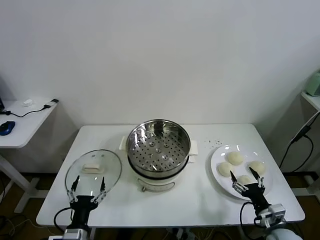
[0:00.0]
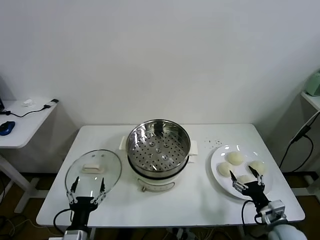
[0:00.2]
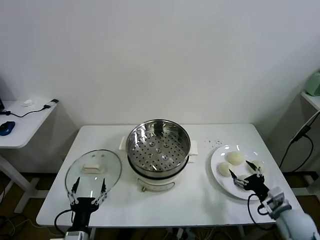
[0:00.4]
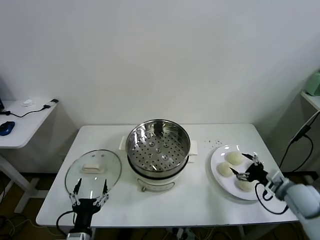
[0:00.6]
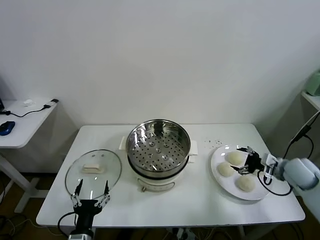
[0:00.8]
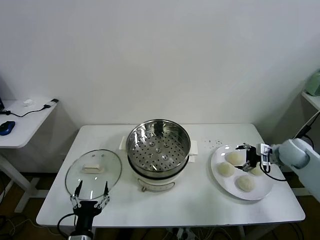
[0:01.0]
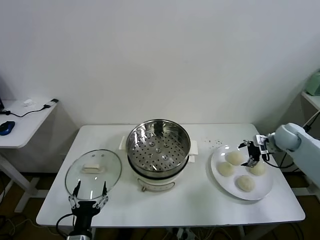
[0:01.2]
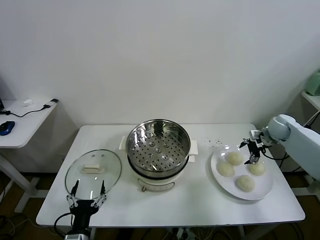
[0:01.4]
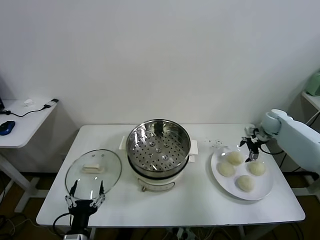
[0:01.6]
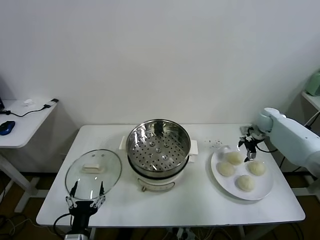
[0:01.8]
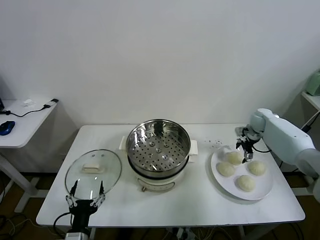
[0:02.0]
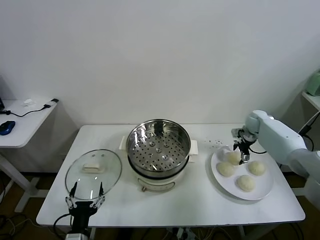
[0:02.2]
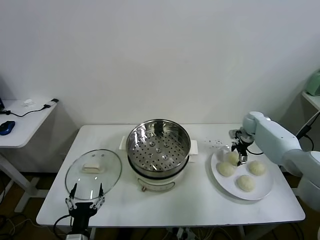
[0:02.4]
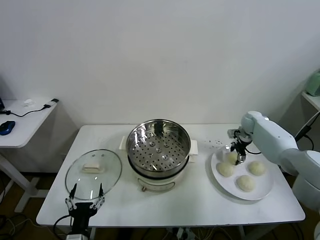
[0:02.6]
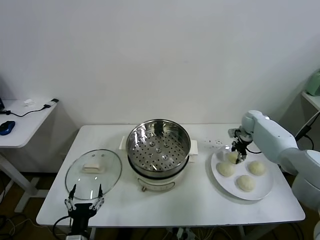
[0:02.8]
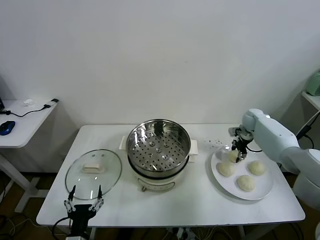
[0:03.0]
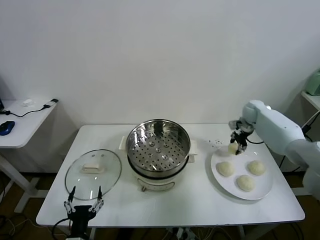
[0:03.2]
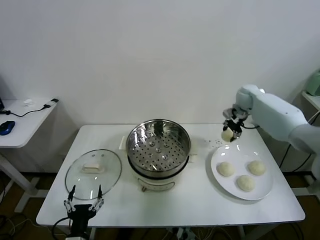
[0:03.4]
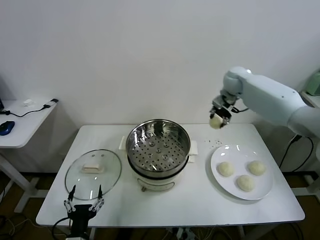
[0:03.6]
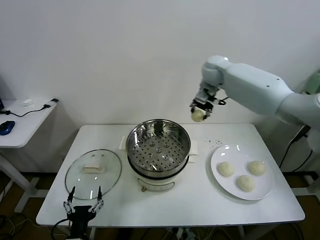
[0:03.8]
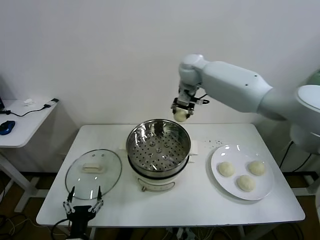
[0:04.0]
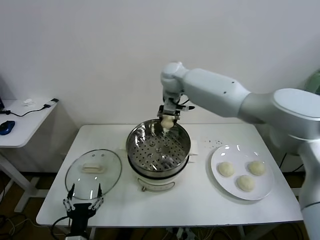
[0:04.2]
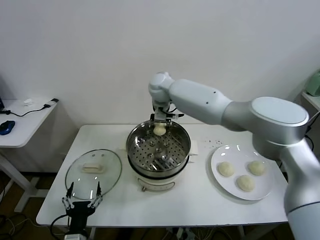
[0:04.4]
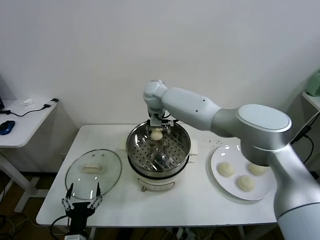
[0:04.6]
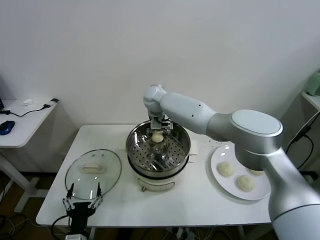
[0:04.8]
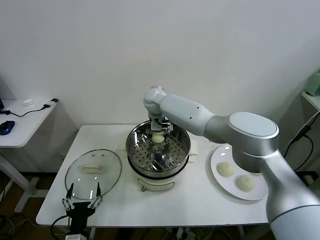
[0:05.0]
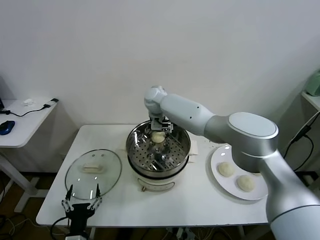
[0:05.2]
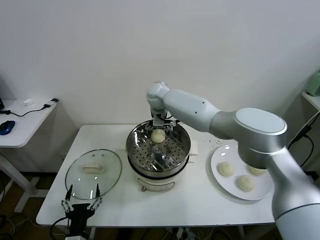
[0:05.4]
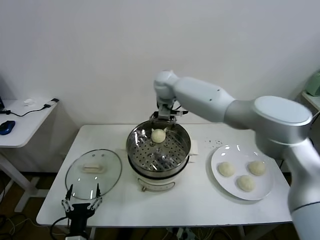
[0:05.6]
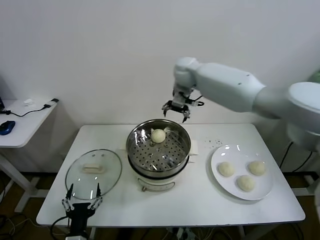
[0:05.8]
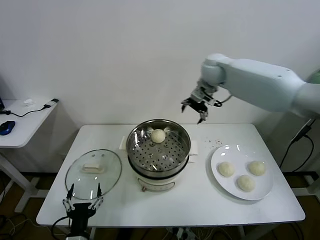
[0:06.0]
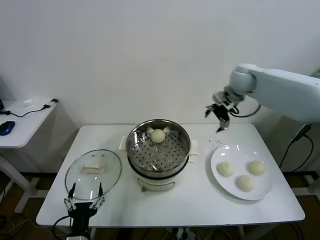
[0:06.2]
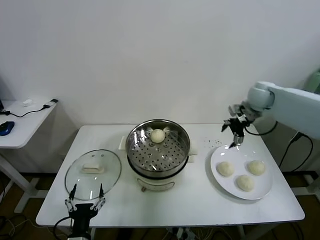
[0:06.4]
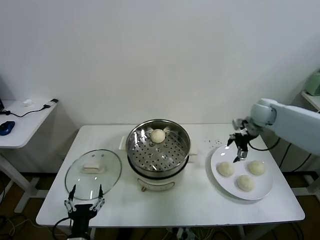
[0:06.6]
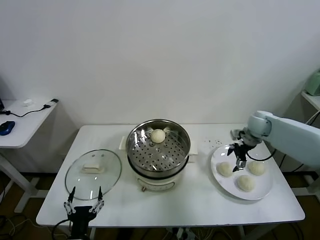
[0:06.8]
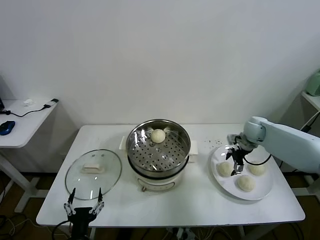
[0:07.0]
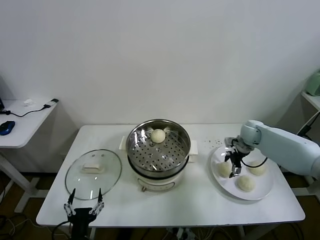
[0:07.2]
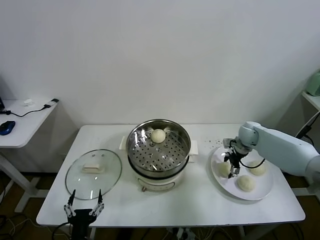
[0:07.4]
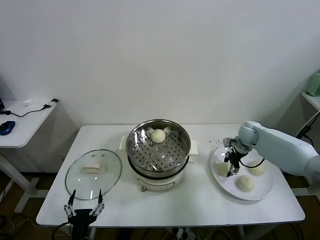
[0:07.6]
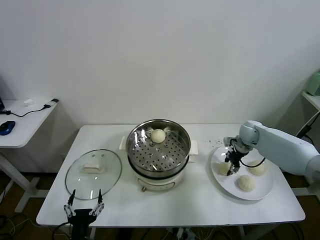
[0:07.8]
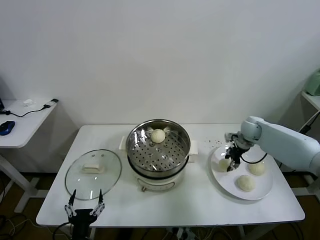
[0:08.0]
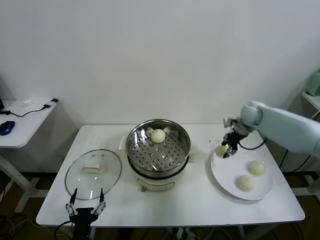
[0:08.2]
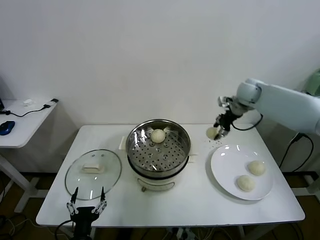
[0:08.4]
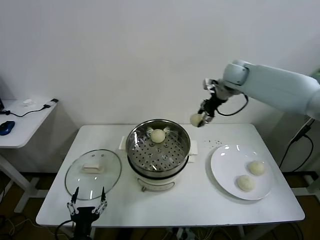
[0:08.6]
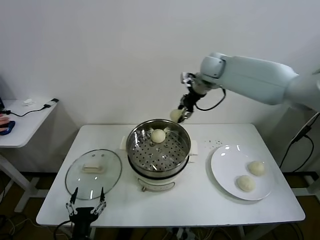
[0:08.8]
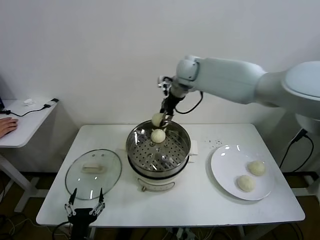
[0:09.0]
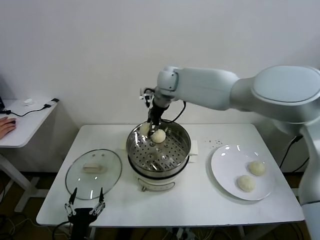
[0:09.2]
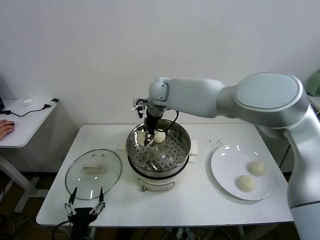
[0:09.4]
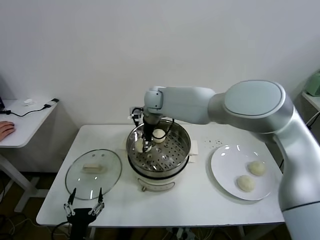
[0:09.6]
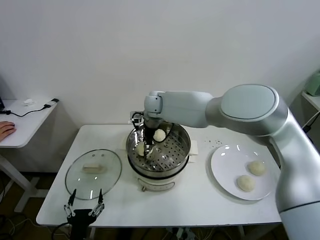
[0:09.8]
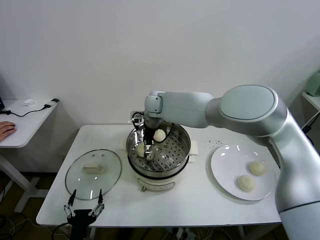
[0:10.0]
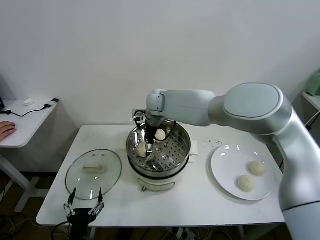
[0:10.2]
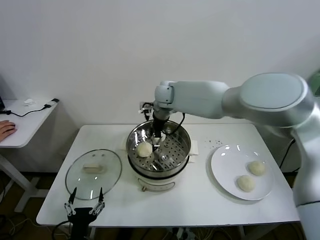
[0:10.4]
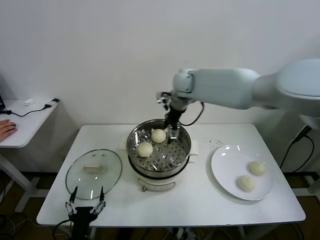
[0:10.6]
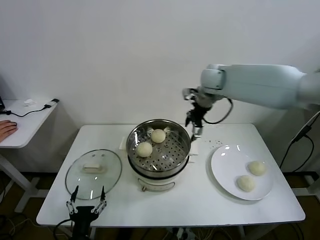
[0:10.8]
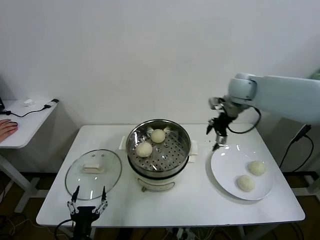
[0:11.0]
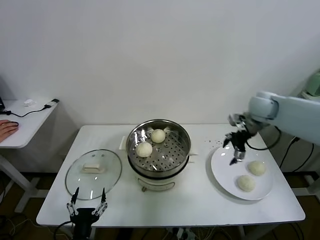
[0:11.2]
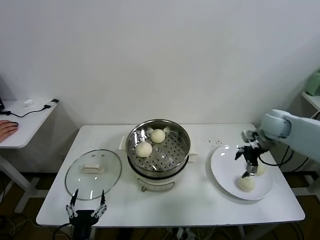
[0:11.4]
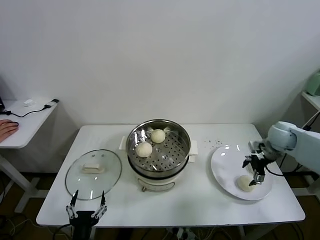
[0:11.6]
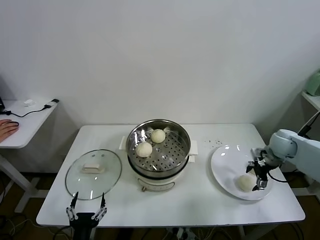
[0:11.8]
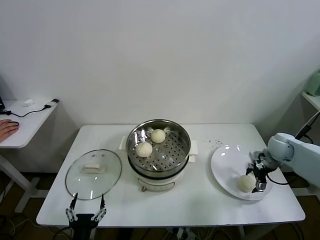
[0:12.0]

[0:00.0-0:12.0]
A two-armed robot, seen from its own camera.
Task of the whole recording: take steamed baozi put them in steamer.
Step, 0.0 to 2.6 s: Grasp the baozi in the plate with right gripper.
Step, 2.8 to 5.4 s: Place the baozi on the steamer with right gripper.
Step, 5.6 to 7.6 s: Grasp the baozi in the plate with right gripper.
Step, 7.8 to 10.2 s: Place the baozi on the steamer with right gripper.
1.6 to 3.0 s: The right gripper shifts by roughly 5 cm, and closes up.
3.0 to 4.4 s: The right gripper moves to the left, roughly 40 cm.
4.4 to 6.0 s: The right gripper moves to the right, about 25 cm, and opens its fingers.
6.0 to 7.6 s: The right gripper heads downward and to the right, covering about 30 cm, and closes up.
7.6 to 9.0 s: The right gripper moves to the left and upward, some 40 cm.
9.0 to 10.4 s: The right gripper goes approximately 5 cm downward, and opens its fingers.
10.4 to 12.0 s: The right gripper travels to the right and downward by roughly 40 cm.

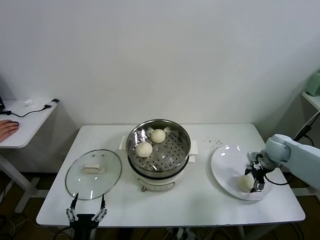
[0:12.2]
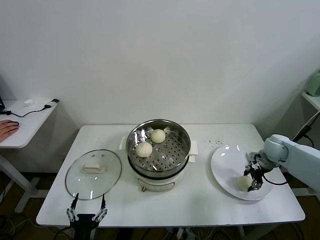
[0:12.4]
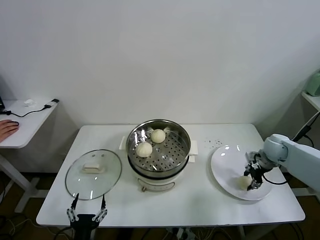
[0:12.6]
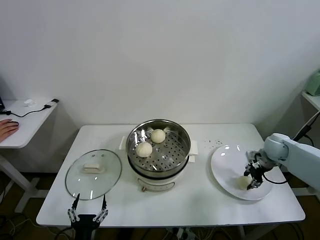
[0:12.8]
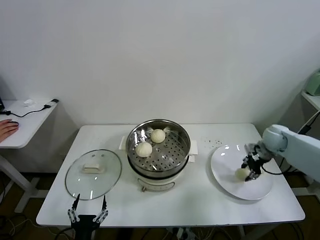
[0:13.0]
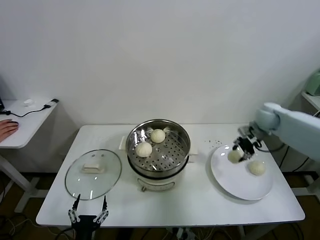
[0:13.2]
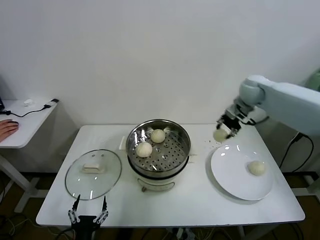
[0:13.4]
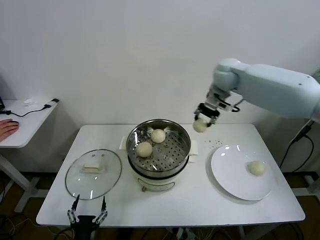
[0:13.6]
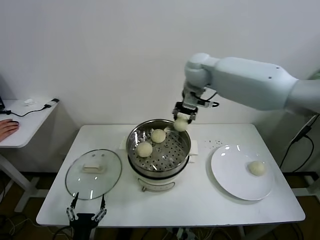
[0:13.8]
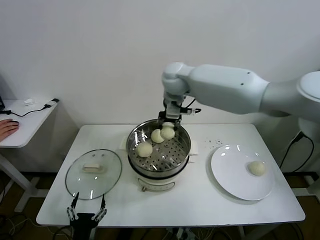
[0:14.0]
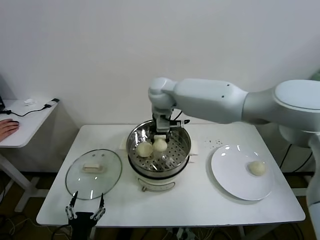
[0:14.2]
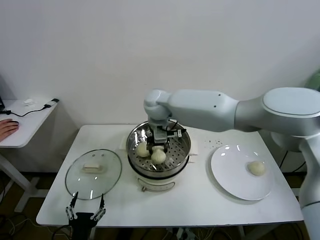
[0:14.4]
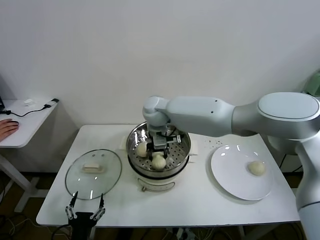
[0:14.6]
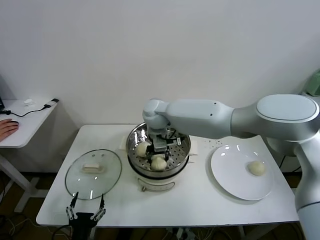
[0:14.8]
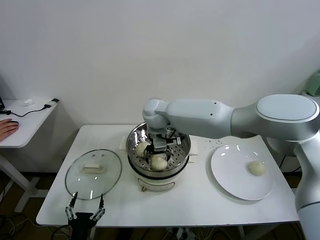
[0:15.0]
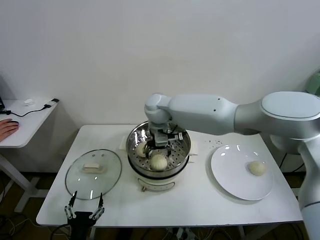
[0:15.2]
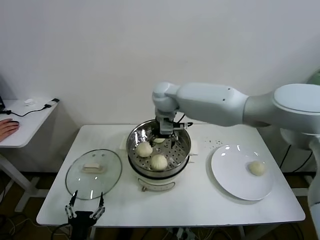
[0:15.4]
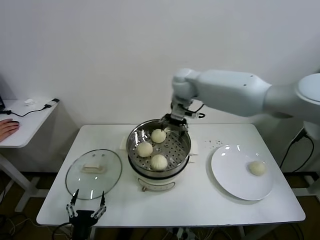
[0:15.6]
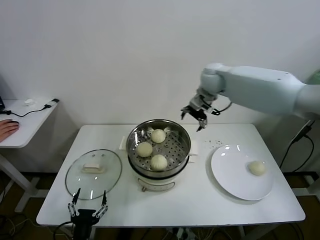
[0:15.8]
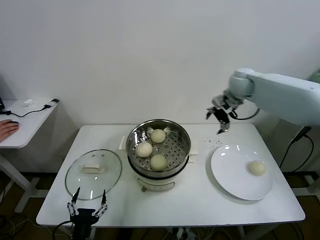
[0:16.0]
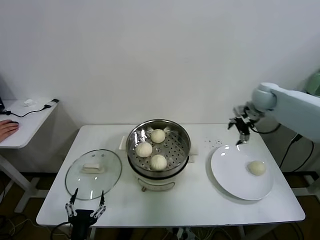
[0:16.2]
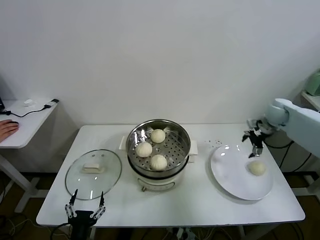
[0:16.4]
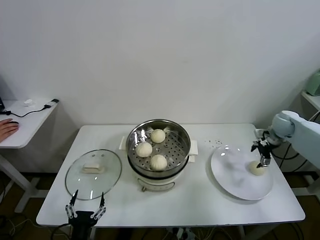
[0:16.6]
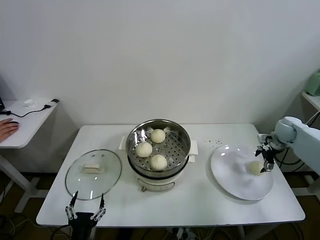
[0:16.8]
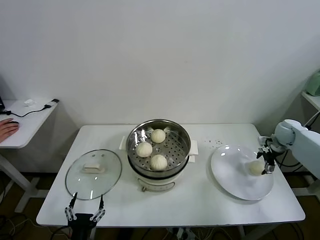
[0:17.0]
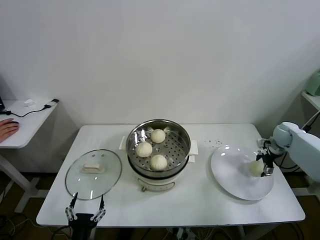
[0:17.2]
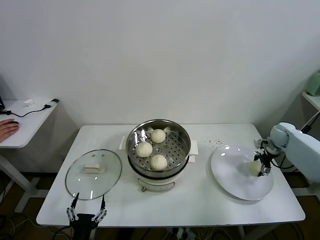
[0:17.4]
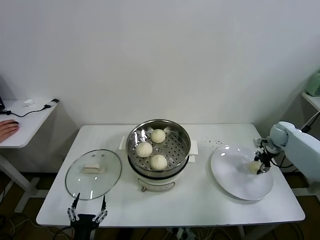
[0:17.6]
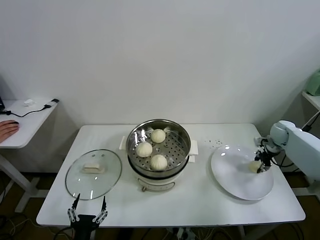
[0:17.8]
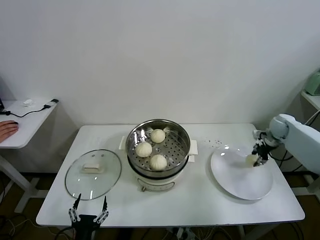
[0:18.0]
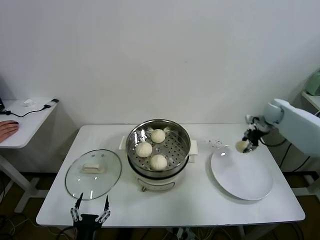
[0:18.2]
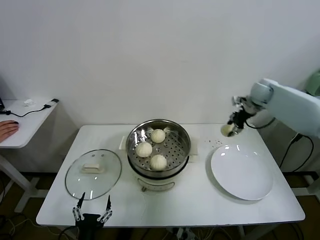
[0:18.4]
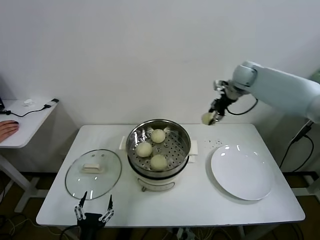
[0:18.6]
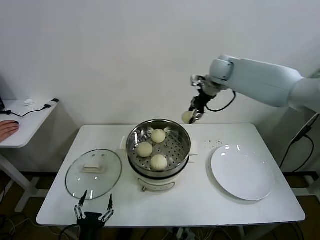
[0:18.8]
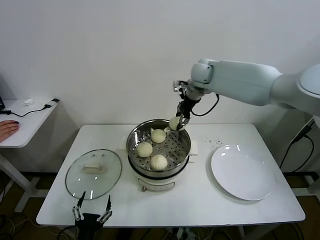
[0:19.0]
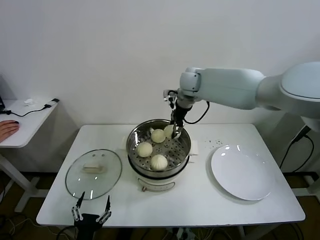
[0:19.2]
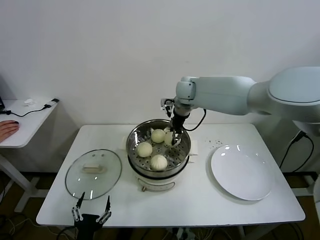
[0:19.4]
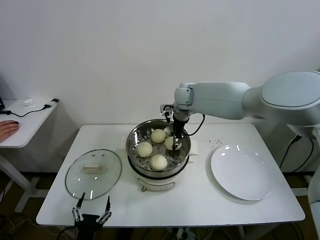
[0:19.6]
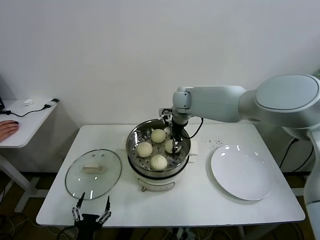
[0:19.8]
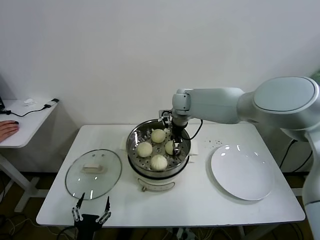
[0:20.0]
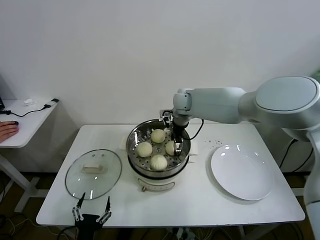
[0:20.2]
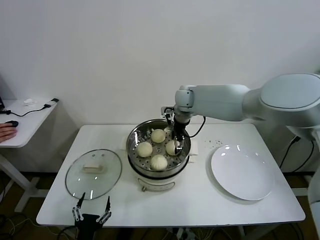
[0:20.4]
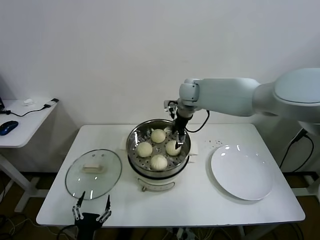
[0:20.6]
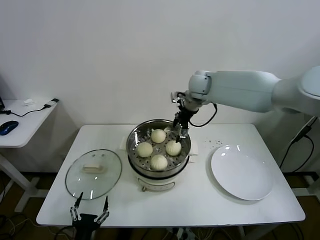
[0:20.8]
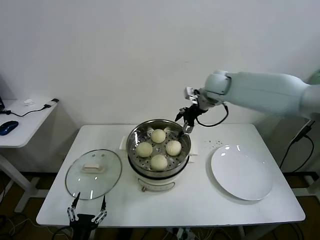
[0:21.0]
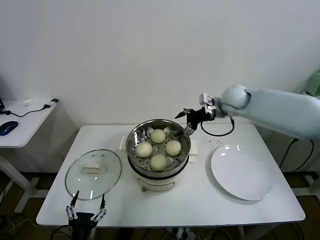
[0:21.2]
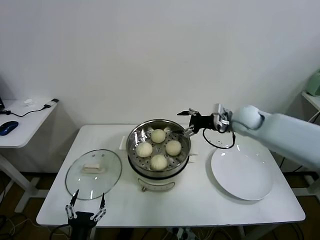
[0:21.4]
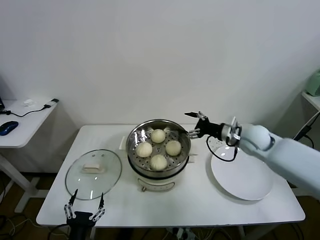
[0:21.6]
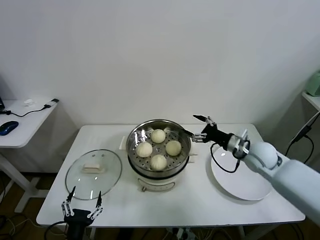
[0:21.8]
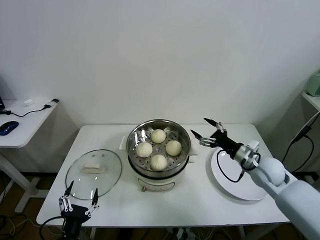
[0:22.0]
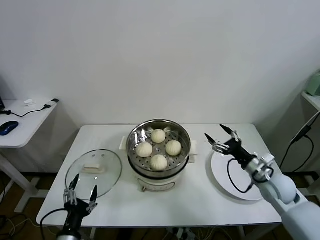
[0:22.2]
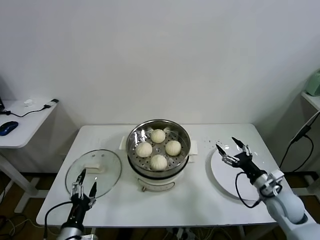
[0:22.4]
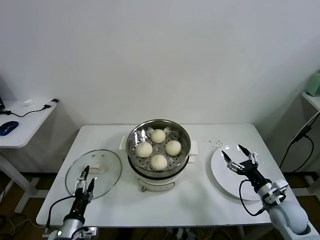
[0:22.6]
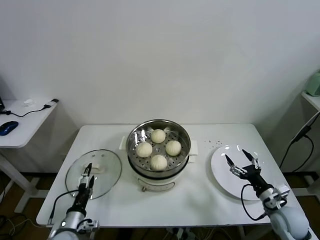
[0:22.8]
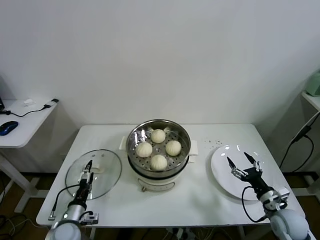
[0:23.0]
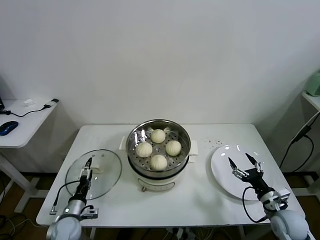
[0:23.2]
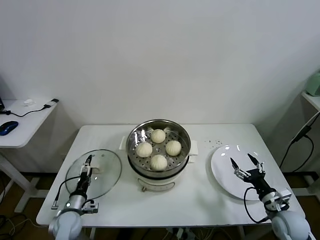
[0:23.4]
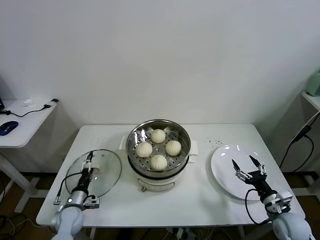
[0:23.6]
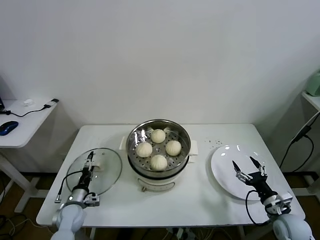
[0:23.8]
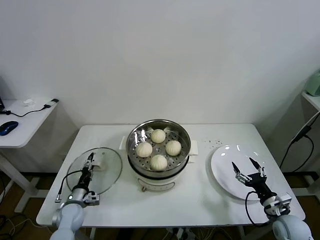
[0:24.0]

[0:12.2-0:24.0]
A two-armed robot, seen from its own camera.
Task of the whole recording: take steamed baozi put them in steamer.
Step, 12.8 to 15.2 s: Place the baozi on the steamer with right gripper.
Step, 15.4 to 17.6 s: Grasp the baozi in the plate with right gripper.
Step, 17.8 to 20.4 s: Place the baozi on the steamer with right gripper.
12.2 to 13.6 s: The right gripper travels upward, to the left and forward by some 35 cm, and closes.
13.6 to 15.2 s: The right gripper shifts some 20 cm to the left and downward, and opens up.
15.2 to 16.6 s: The right gripper heads to the right, covering some 50 cm.
16.6 to 18.2 s: The right gripper goes about 5 cm forward, goes downward and returns, some 5 cm each way, and closes up.
18.2 to 19.6 s: The right gripper moves to the left, roughly 35 cm.
19.6 to 21.0 s: The right gripper moves to the right and upward, approximately 10 cm, and opens.
21.0 to 22.6 s: The left gripper goes some 5 cm forward. The right gripper moves backward, downward and to the right, roughly 50 cm.
22.6 to 24.0 s: The right gripper changes place by about 5 cm. The left gripper shifts roughly 15 cm forward and downward.
